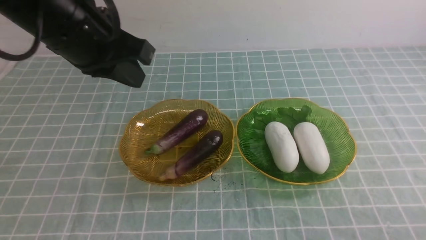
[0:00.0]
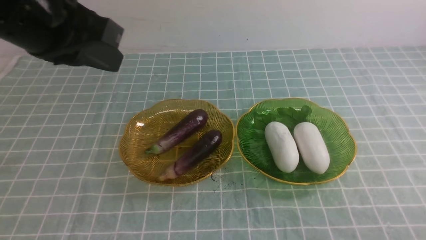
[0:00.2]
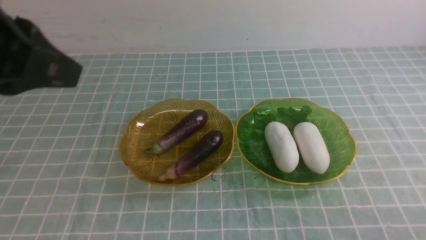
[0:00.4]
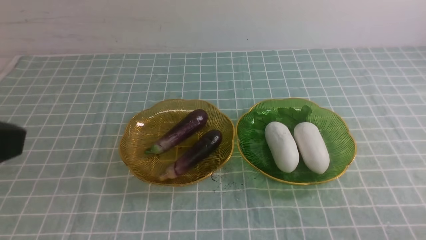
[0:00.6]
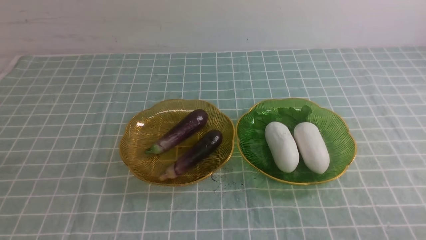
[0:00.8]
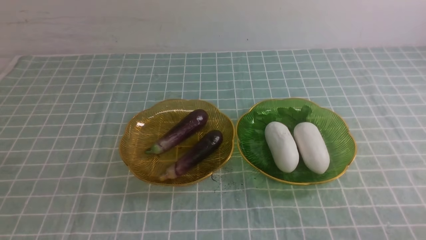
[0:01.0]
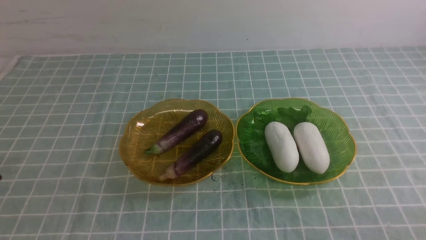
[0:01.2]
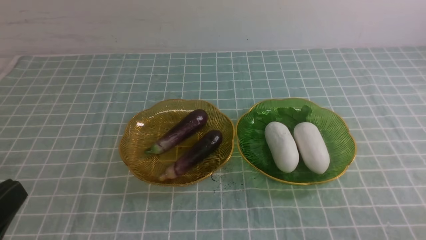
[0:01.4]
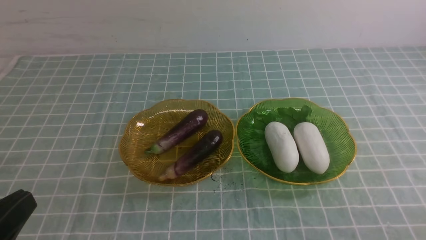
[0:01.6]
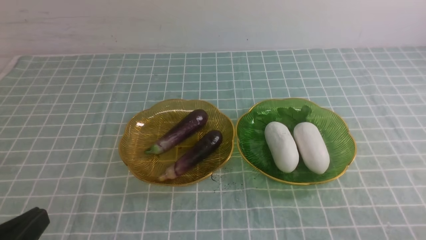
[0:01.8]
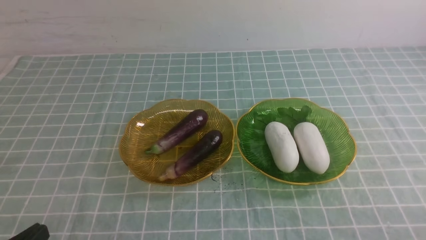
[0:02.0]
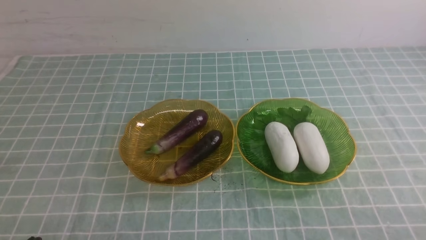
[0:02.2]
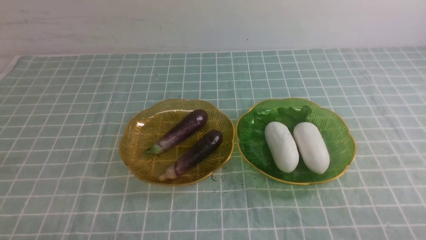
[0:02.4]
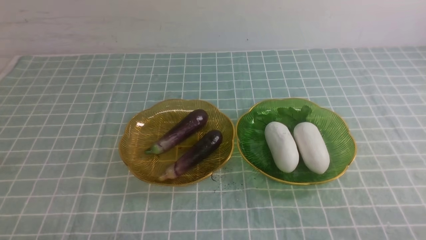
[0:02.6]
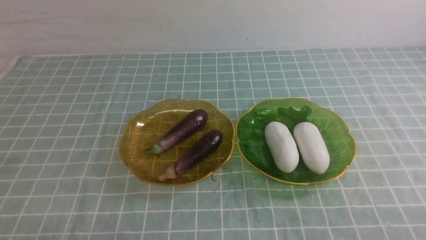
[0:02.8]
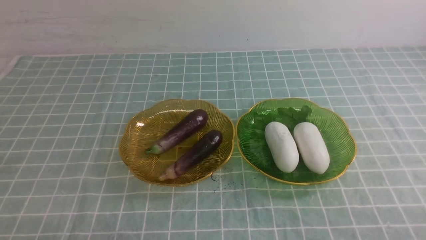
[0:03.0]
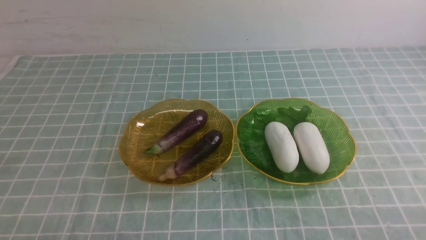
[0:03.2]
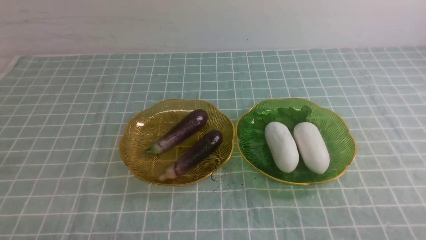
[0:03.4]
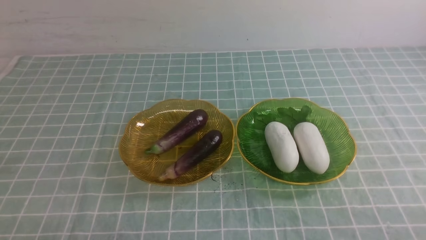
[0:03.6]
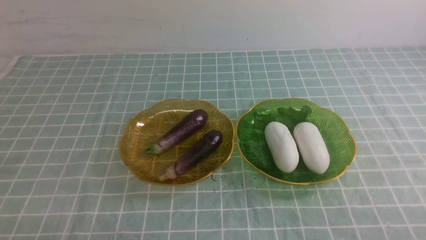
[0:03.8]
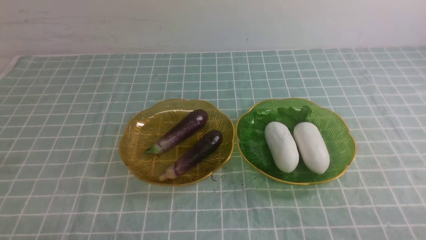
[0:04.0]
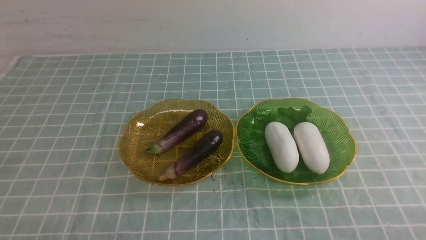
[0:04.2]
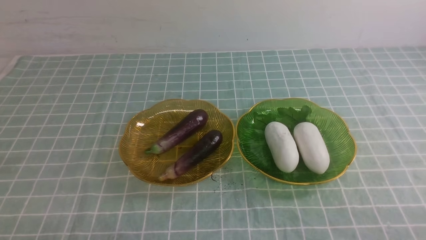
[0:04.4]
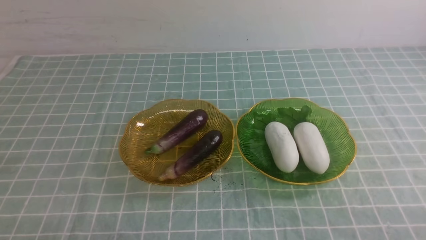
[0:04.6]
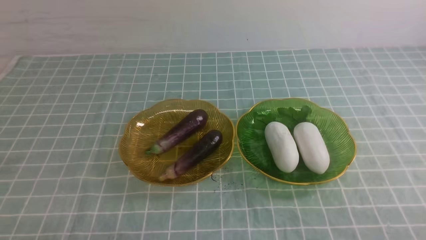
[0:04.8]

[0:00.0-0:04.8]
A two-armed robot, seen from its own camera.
0:00.0 to 0:01.6: The left gripper heads backward and downward, covering roughly 25 cm.
0:01.6 to 0:03.2: The left gripper travels downward by some 10 cm.
0:03.2 to 0:04.8: Both grippers stay about where they are.
